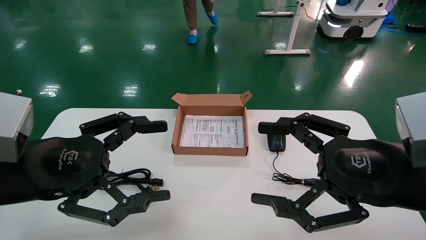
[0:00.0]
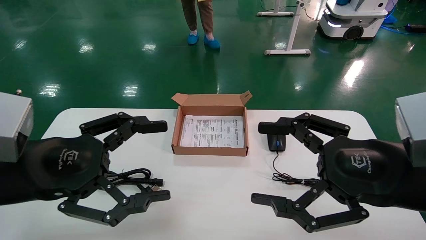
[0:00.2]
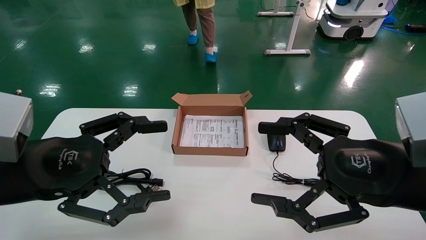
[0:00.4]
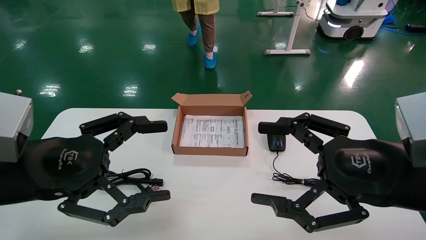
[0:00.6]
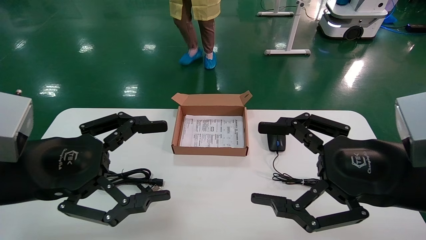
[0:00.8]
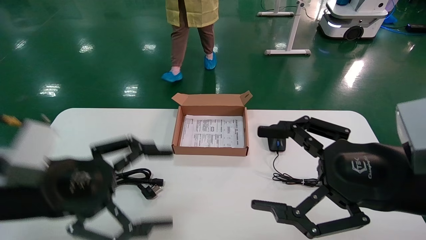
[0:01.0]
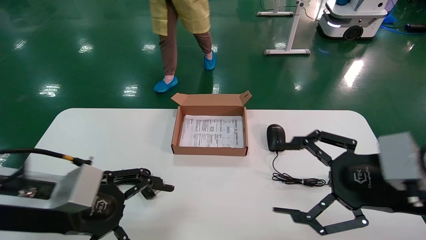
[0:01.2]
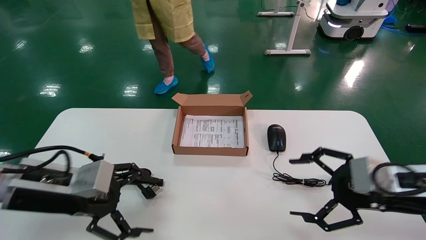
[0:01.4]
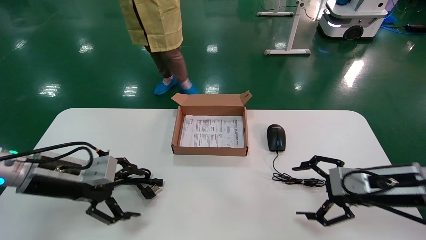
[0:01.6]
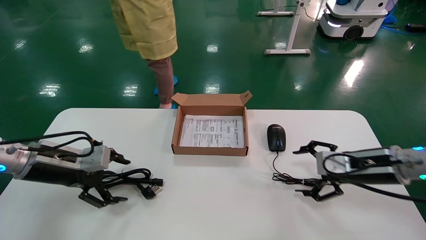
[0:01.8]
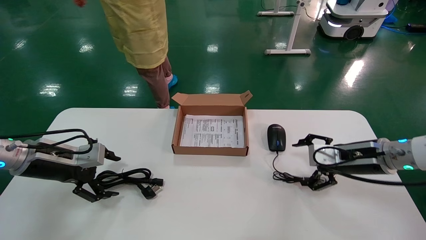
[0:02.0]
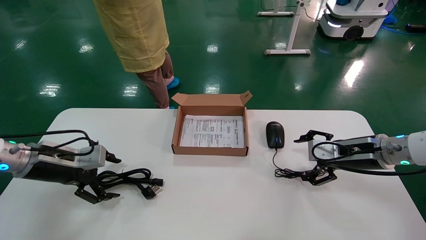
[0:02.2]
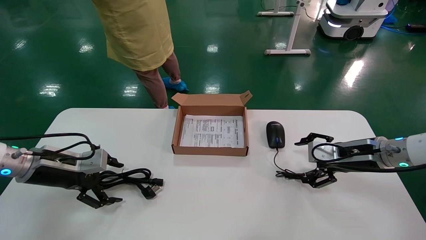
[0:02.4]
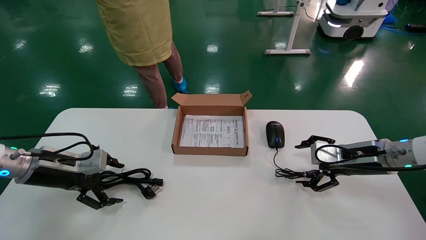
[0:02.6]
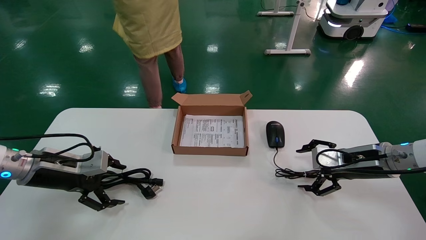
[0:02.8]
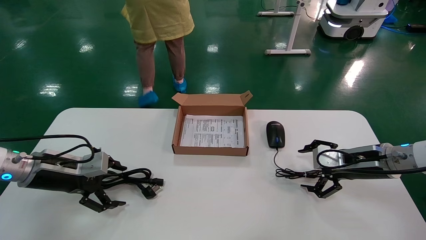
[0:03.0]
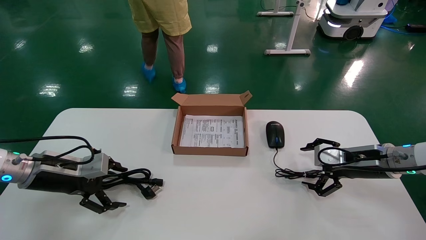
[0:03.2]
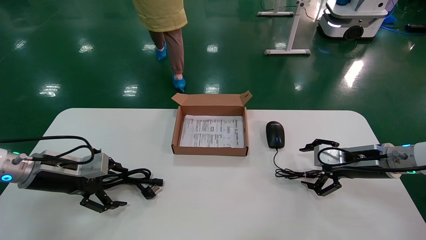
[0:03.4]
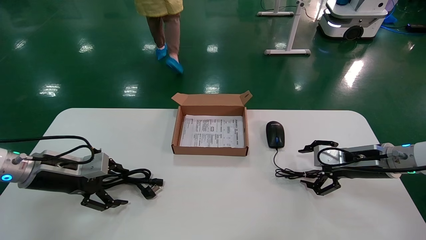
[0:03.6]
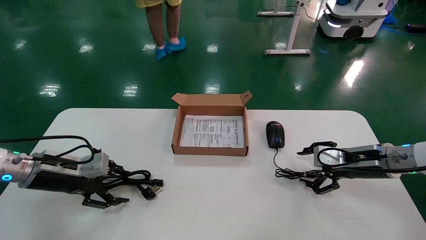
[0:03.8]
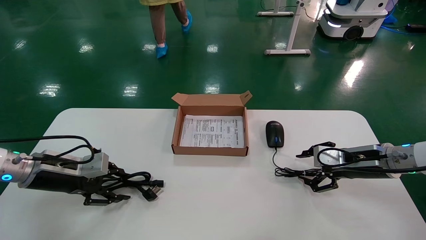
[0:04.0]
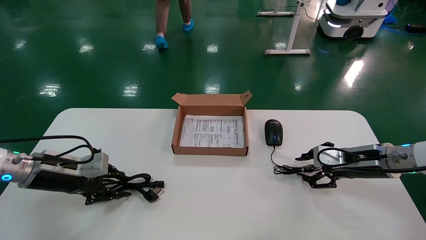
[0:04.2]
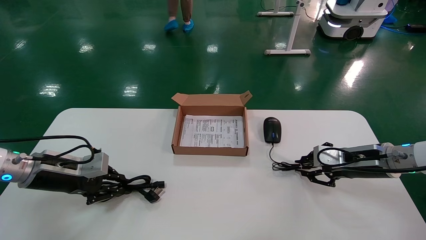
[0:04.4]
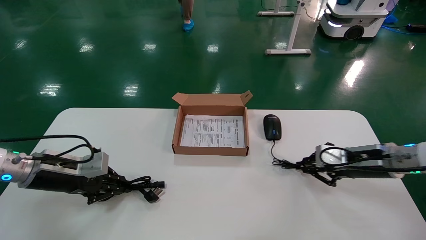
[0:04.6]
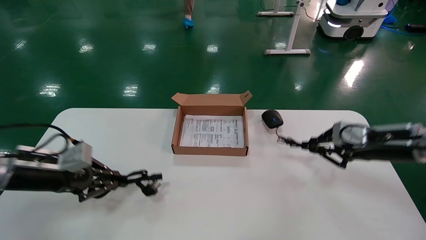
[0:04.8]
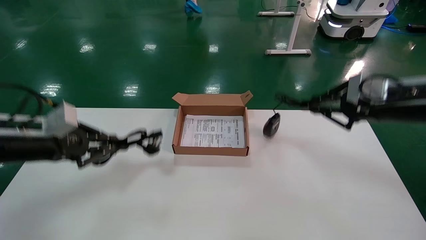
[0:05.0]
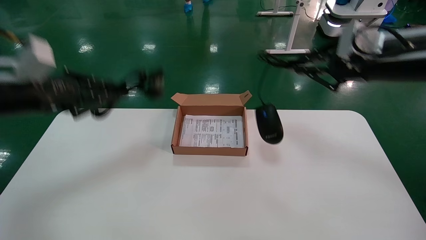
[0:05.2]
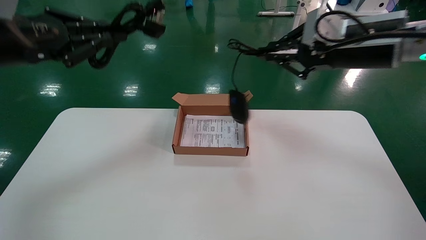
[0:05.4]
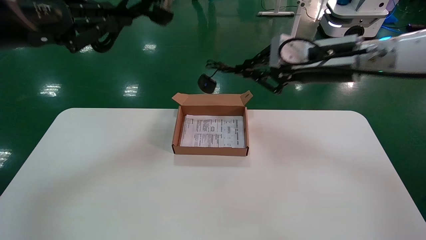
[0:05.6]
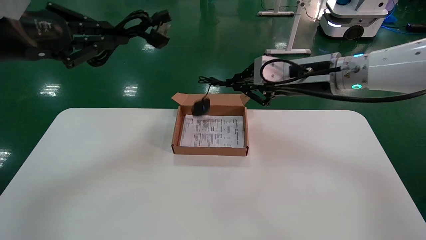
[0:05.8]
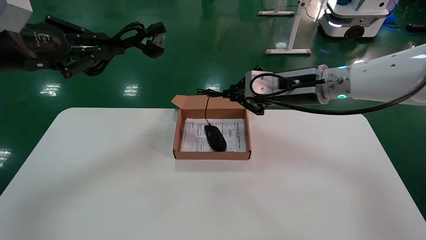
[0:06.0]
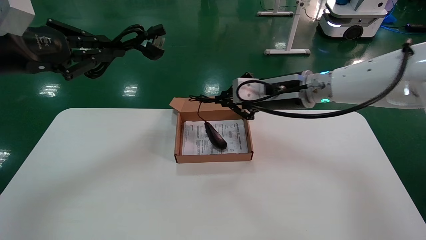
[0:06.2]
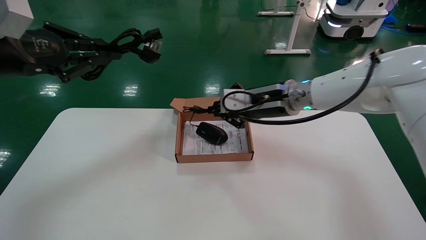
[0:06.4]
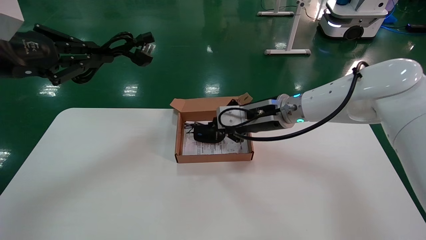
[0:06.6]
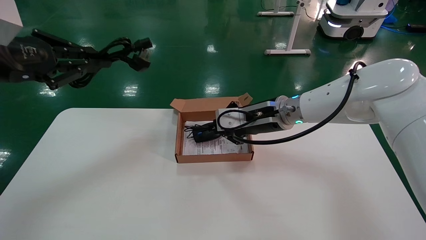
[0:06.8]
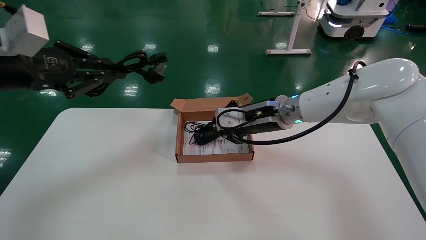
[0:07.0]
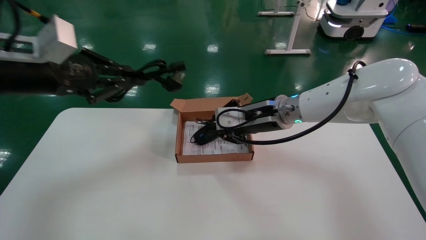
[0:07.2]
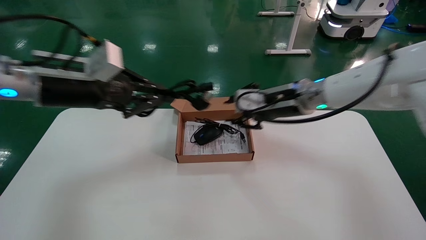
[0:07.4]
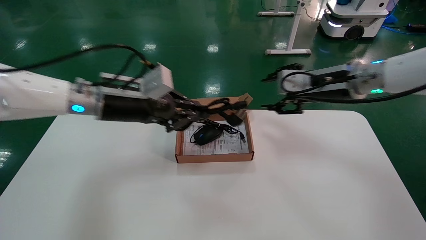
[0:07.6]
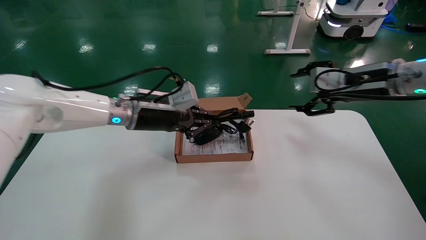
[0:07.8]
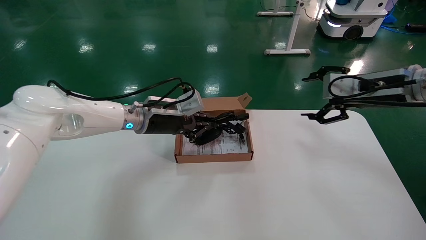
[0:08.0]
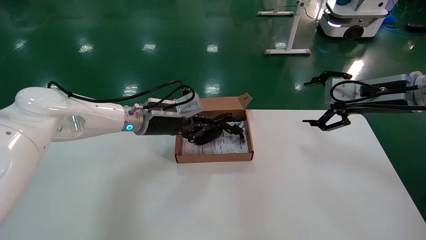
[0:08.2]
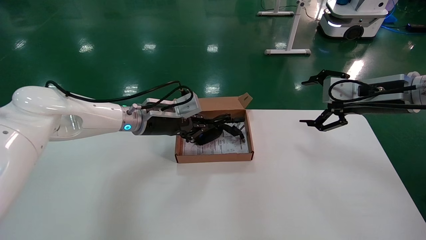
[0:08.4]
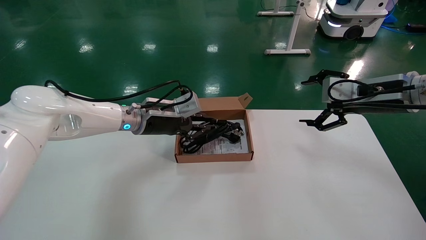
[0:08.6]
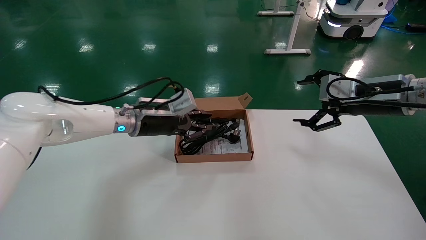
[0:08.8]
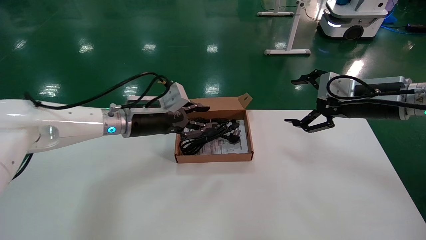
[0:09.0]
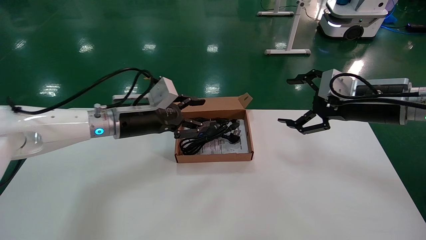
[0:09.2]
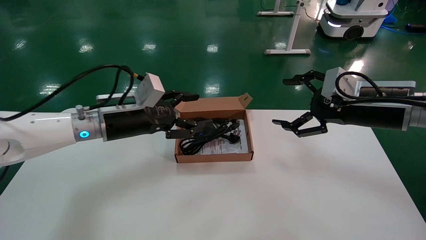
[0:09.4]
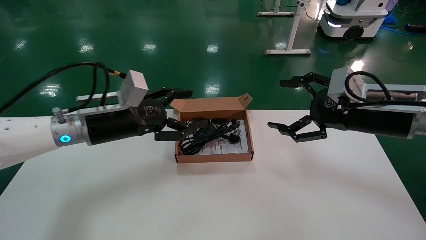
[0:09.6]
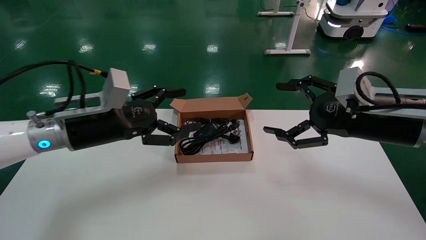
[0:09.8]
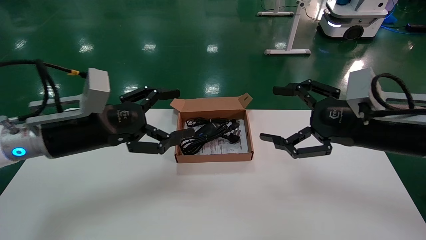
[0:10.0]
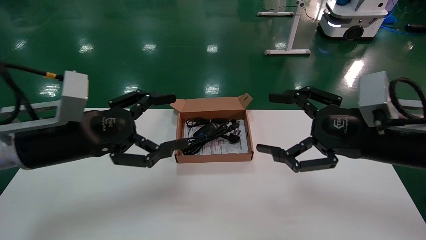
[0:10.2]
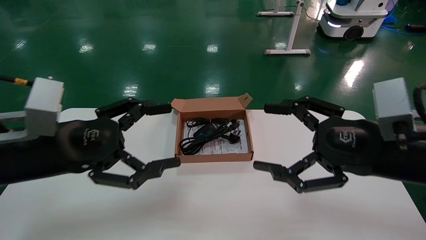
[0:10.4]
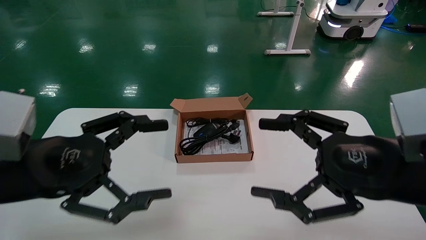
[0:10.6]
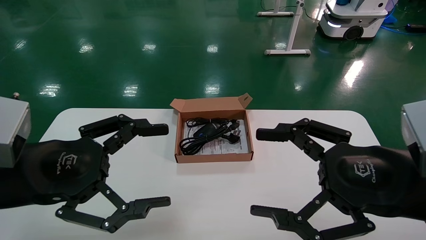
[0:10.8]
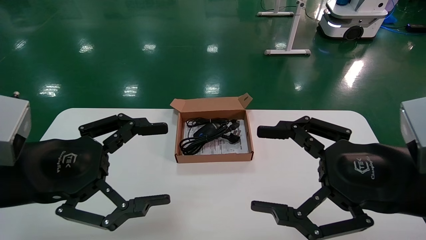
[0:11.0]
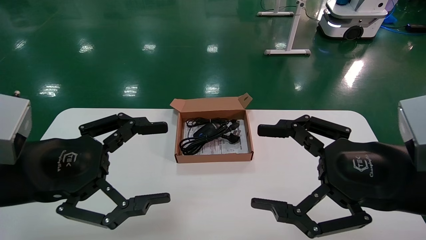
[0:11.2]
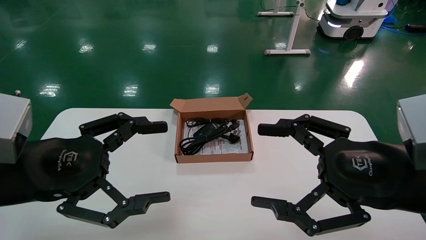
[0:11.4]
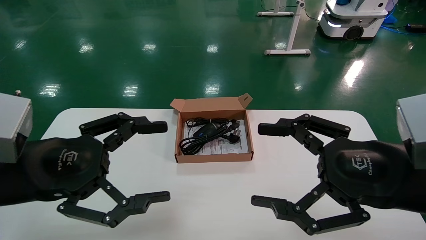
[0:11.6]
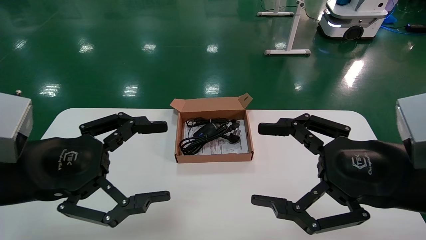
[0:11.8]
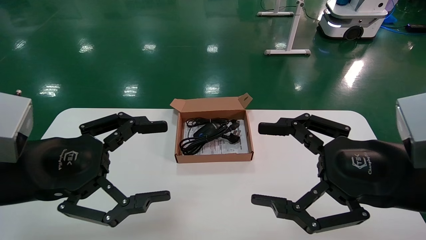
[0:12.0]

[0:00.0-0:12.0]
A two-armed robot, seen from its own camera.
Step, 0:01.2 to 0:04.8: Grab and lift both the mouse and power cord from the accessory packaging area at the same time.
Step, 0:05.0 to 0:09.2: Place the mouse and power cord into the box.
0:00.0 to 0:01.6: The right gripper moves forward, downward and to the right, about 15 cm. The left gripper shifts about 15 cm forward, downward and to the left.
0:01.6 to 0:03.0: The left gripper moves approximately 10 cm. The right gripper is displaced forward by some 10 cm.
0:03.0 to 0:04.4: The left gripper closes. Meanwhile the right gripper closes.
0:04.4 to 0:06.0: The left gripper moves upward, approximately 25 cm, while the right gripper travels to the left and upward by about 25 cm.
0:06.0 to 0:07.6: The left gripper shifts approximately 20 cm to the right, downward and forward, while the right gripper shifts some 5 cm to the right, and opens its fingers.
0:07.6 to 0:09.0: The left gripper heads downward, covering roughly 5 cm; the right gripper shifts about 5 cm to the right, and opens.
0:09.0 to 0:10.4: The right gripper moves backward, approximately 15 cm; the left gripper shifts some 20 cm backward and to the left, and opens.

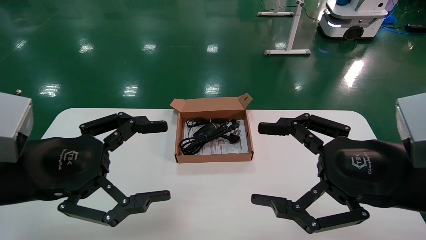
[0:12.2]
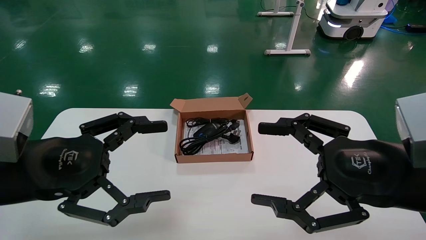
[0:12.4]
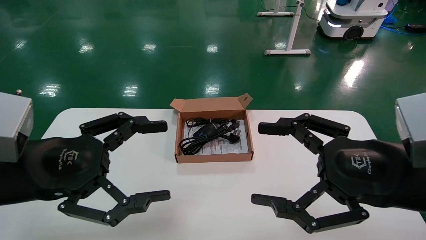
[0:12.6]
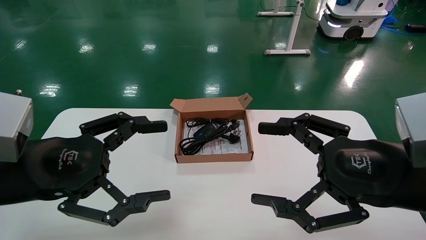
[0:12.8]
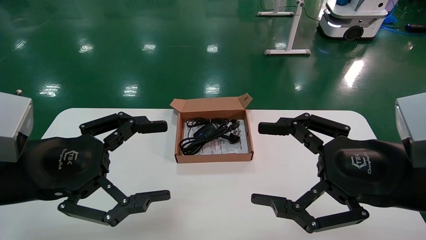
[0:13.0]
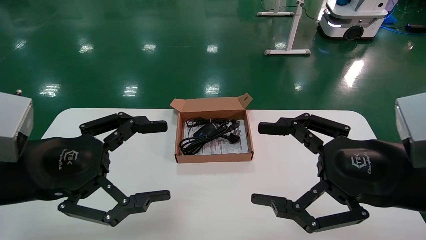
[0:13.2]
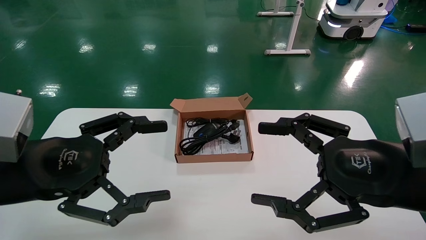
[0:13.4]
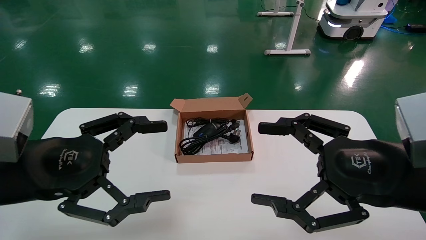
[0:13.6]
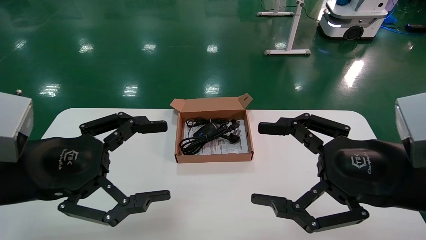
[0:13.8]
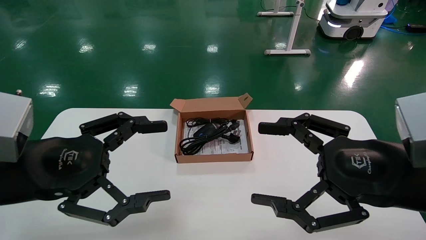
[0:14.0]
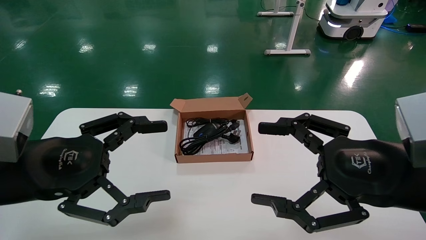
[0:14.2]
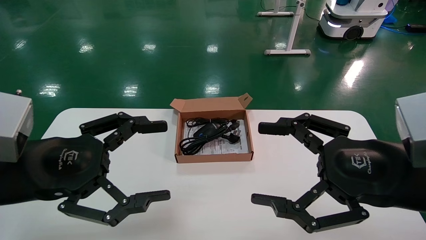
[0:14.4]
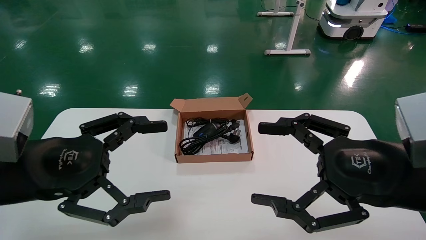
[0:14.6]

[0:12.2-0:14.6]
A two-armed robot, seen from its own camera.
0:12.2 to 0:14.6: The two grippers keep their place.
